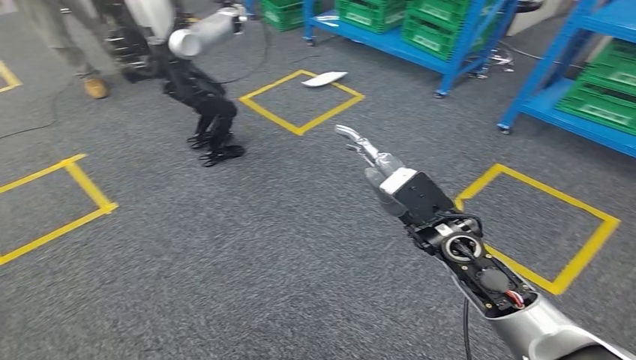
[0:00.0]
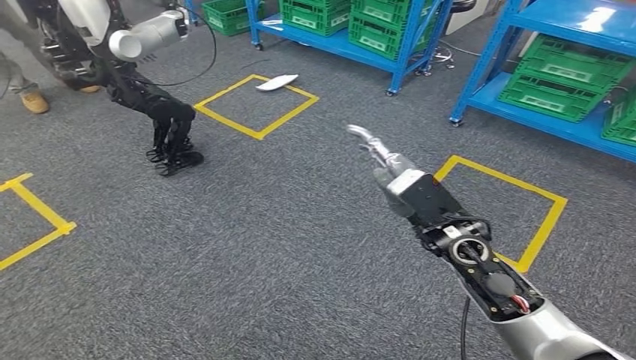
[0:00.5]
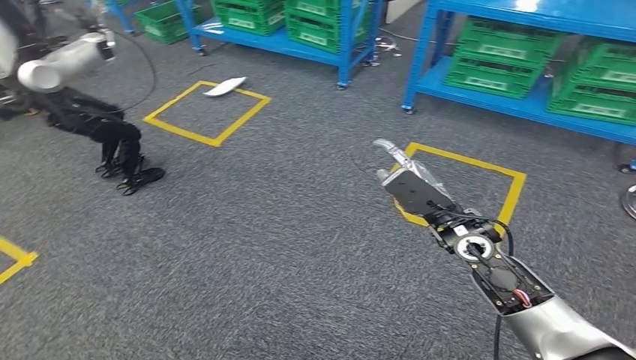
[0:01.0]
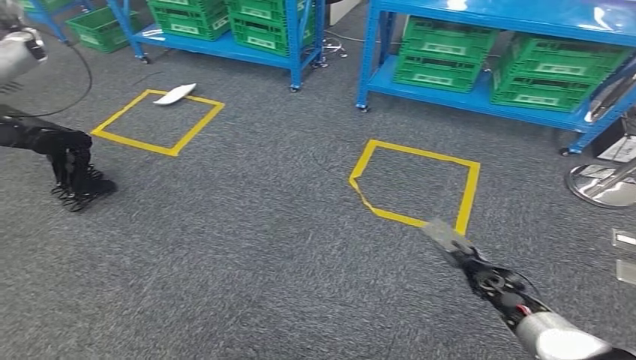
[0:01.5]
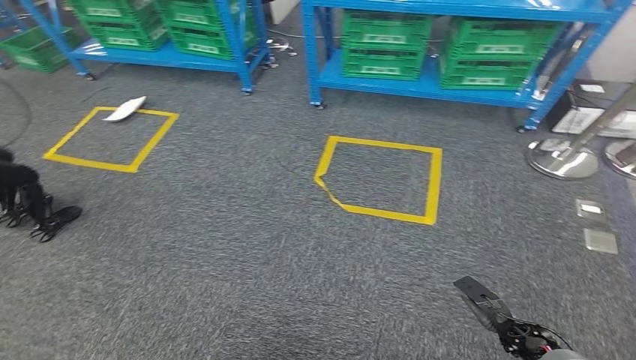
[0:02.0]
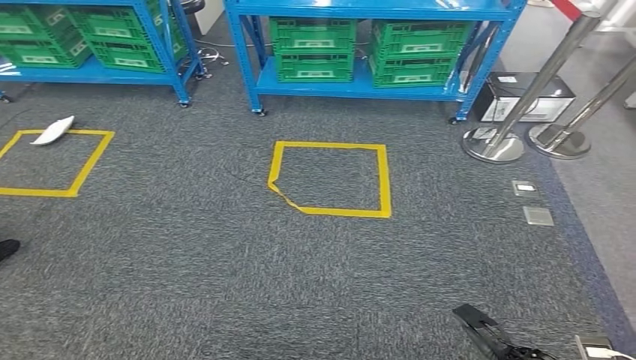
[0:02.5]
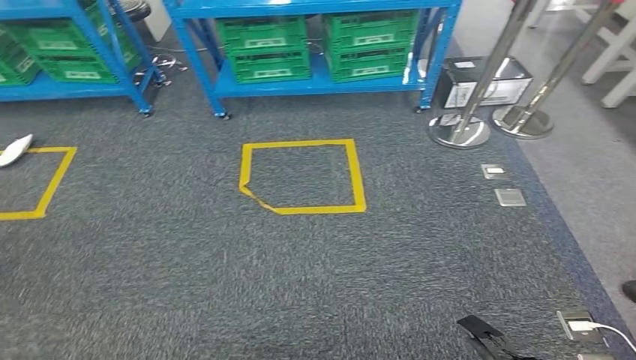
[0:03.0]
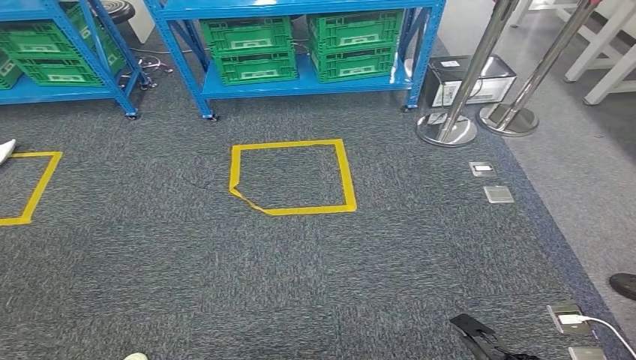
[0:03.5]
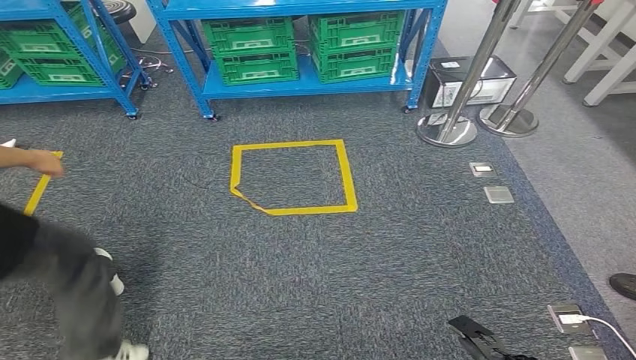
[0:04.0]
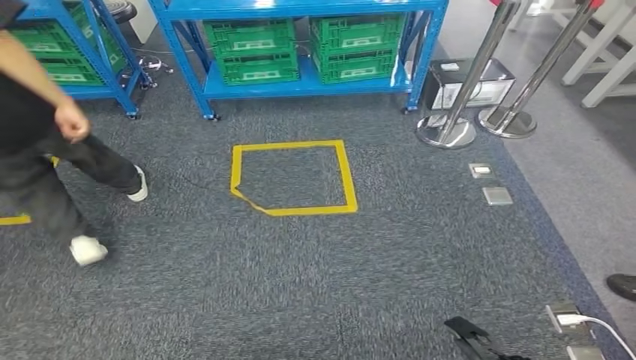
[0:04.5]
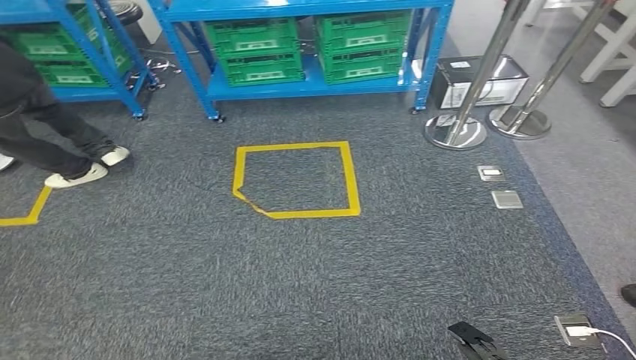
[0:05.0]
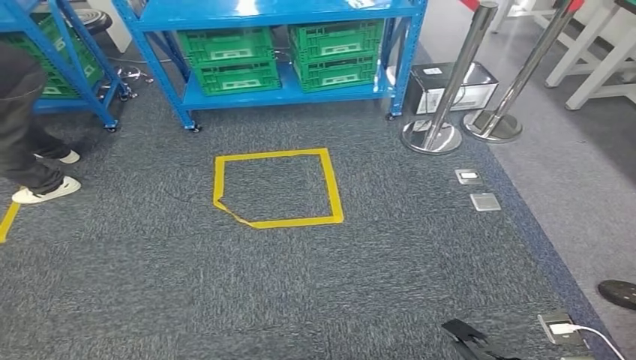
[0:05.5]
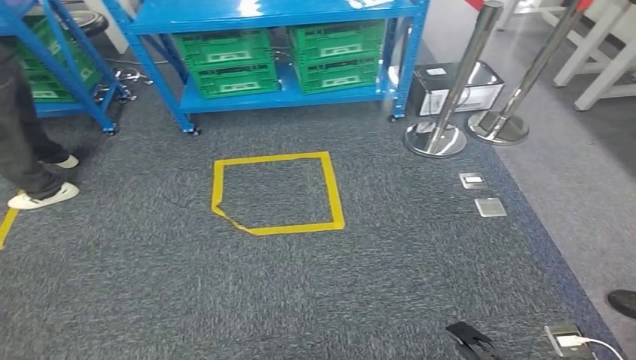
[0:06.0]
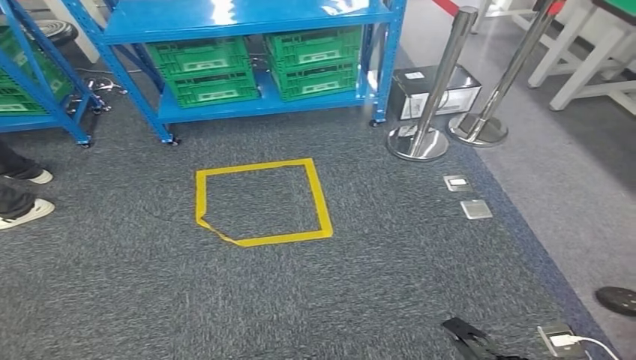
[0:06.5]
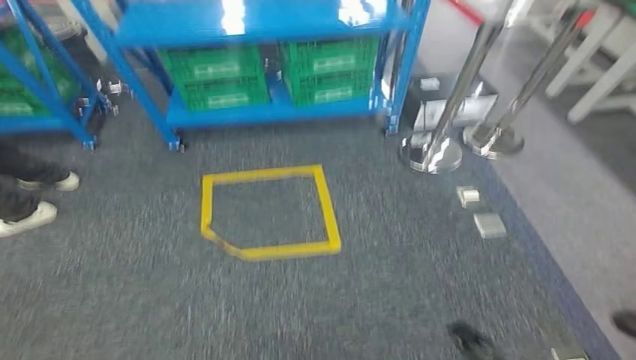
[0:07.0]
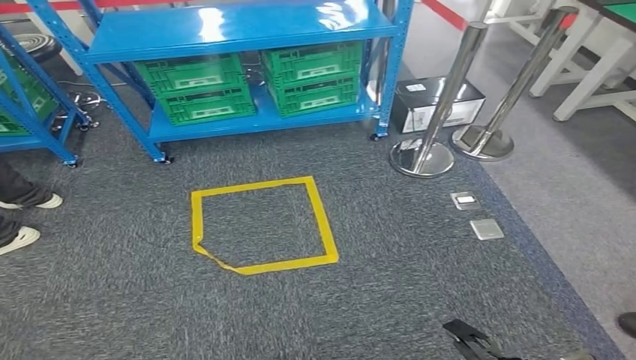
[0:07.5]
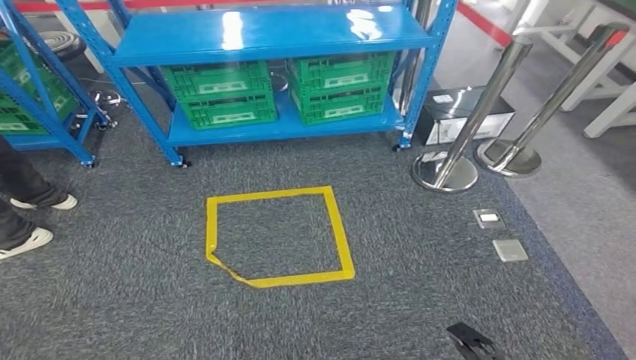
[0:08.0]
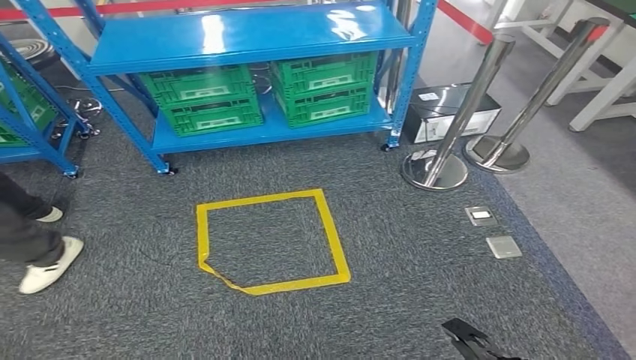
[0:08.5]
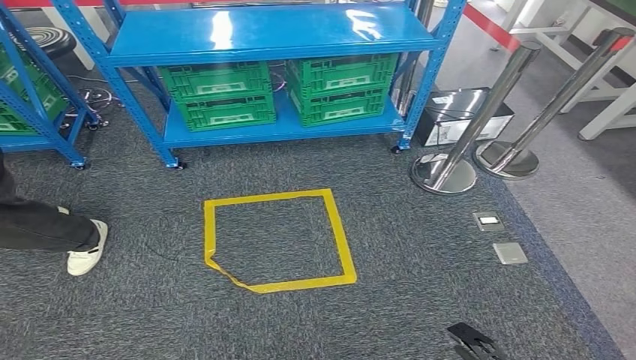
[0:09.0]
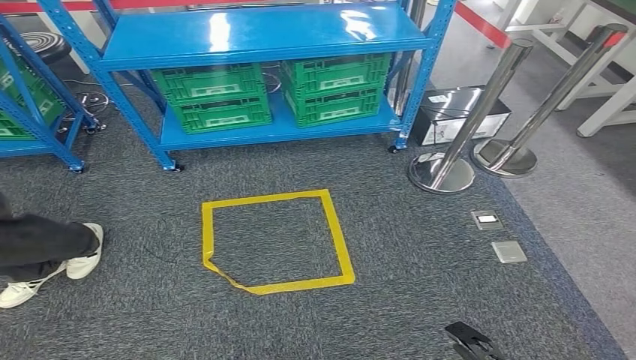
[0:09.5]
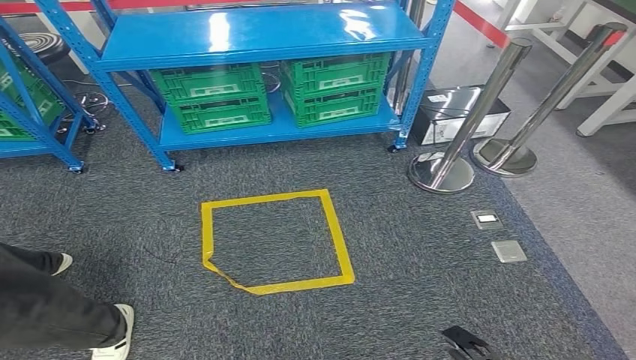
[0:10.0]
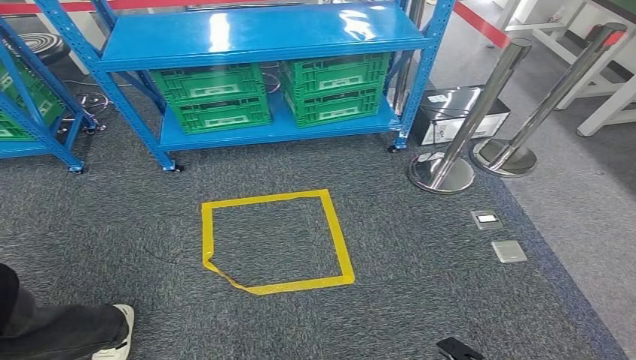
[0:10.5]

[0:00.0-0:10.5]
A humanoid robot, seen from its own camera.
Step, 0:00.0 to 0:10.5: Return to the initial position at the workbench.
